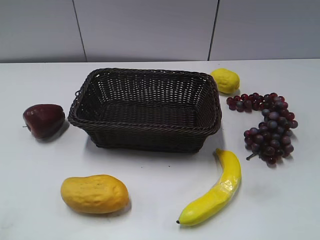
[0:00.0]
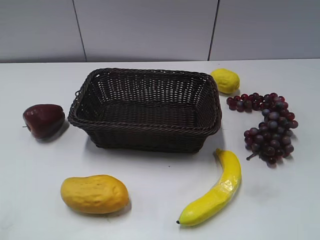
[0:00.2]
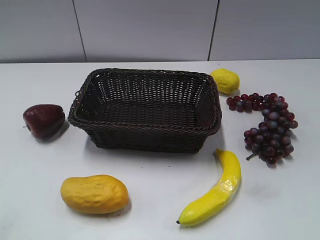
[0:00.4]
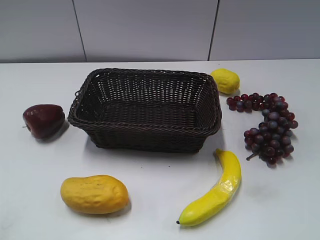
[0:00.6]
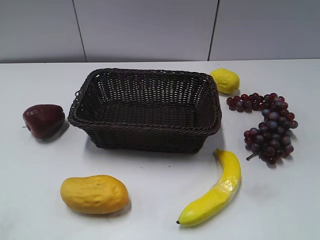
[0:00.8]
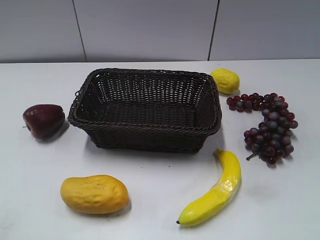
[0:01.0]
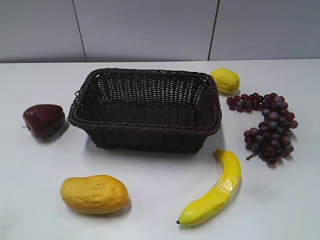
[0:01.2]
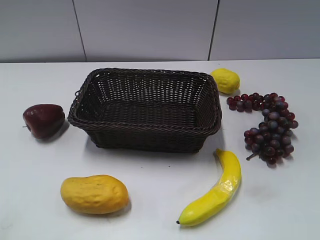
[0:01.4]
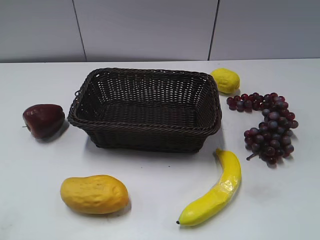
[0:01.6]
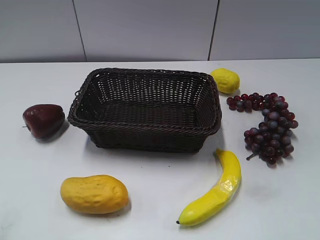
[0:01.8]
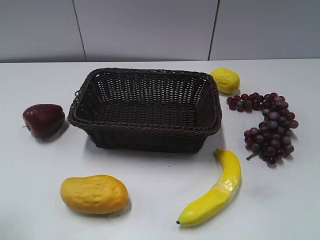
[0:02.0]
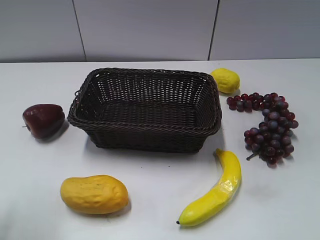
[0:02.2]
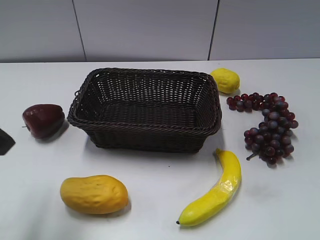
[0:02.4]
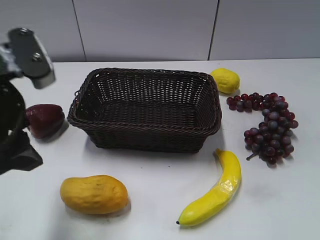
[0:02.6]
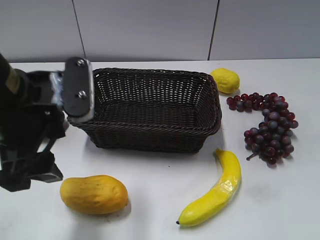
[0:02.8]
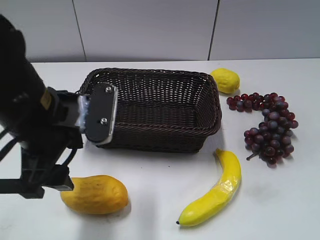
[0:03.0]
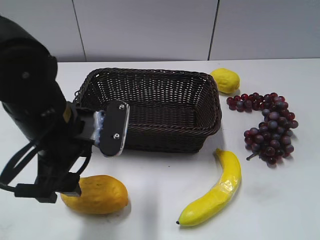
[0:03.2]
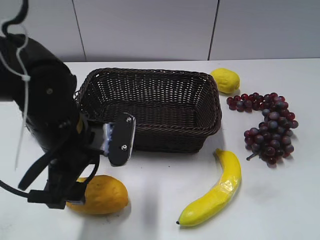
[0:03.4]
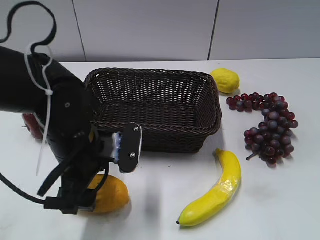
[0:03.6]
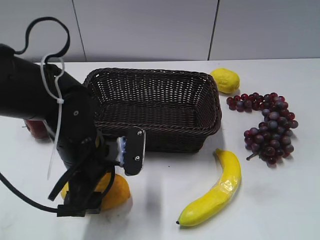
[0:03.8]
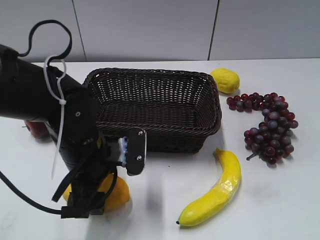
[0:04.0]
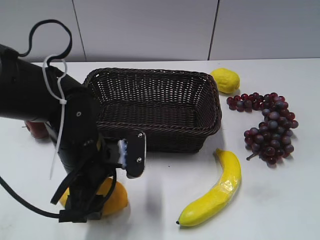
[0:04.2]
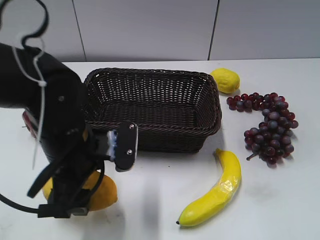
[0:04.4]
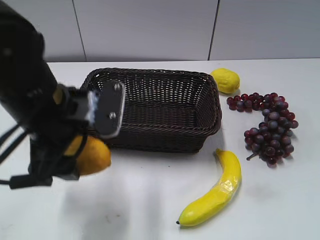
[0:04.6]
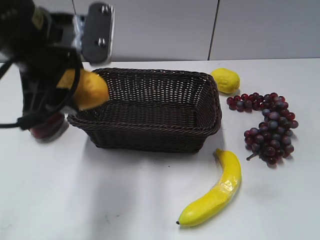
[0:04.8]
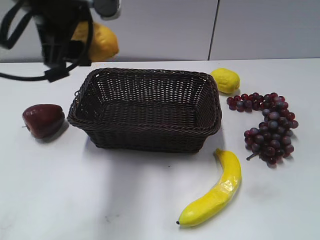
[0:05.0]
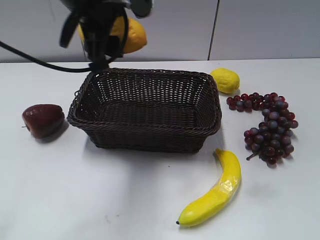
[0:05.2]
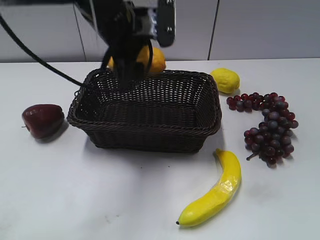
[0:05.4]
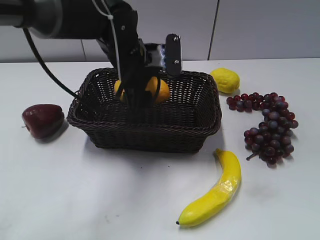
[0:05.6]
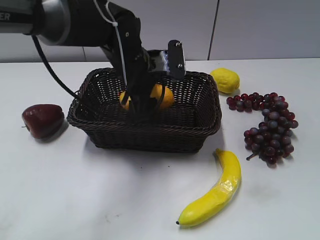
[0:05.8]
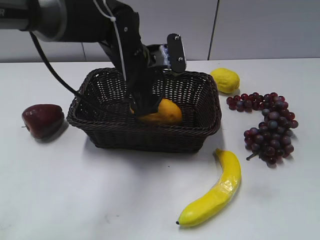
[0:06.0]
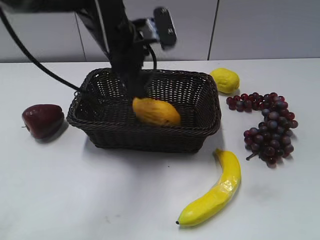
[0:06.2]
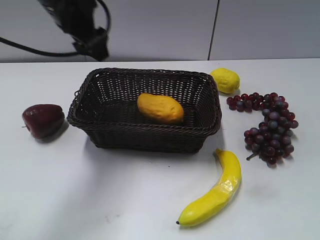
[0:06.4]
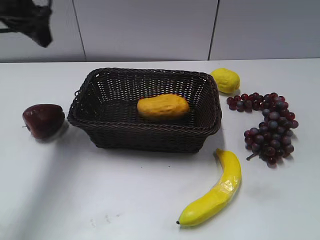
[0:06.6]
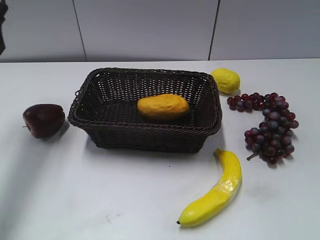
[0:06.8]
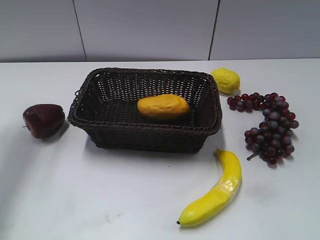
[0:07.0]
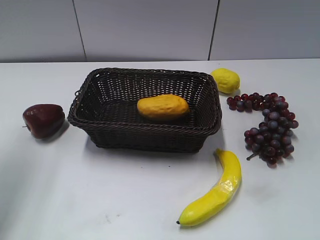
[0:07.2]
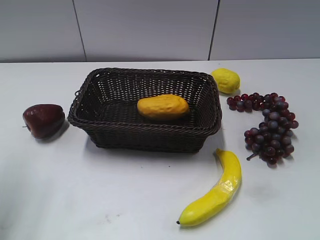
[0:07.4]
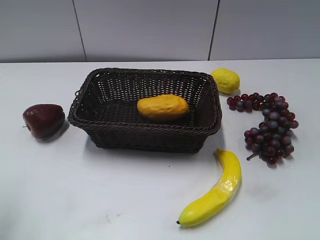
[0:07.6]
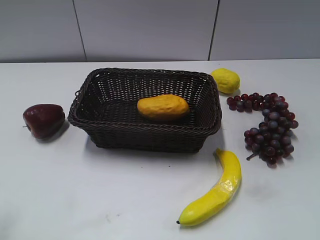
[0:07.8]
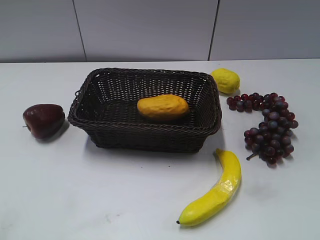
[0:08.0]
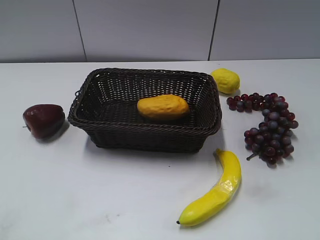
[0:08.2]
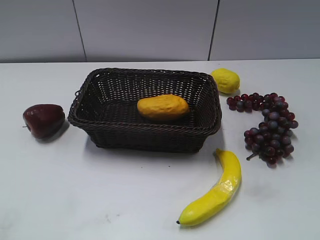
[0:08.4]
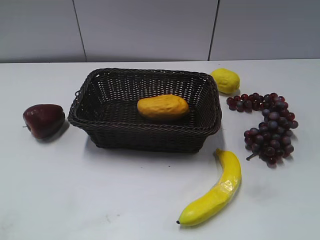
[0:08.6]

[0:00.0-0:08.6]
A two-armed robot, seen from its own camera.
Step, 0:02.4 to 0:04.0: Grasp the mango with left gripper.
Step, 0:04.2 to 0:05.8: Place the mango in the basket with left gripper.
0:01.4 to 0:02.8: The left gripper heads forward and to the right, covering about 25 cm.
0:02.8 to 0:04.4: The left gripper is displaced downward by approximately 10 cm.
0:04.4 to 0:05.8: The left gripper moves forward and to the right, about 15 cm, and travels upward and back again, about 15 cm each way.
0:05.8 to 0:07.2: The left gripper moves to the left and upward, some 30 cm.
0:07.2 to 0:08.6: The left gripper travels backward by about 30 cm.
